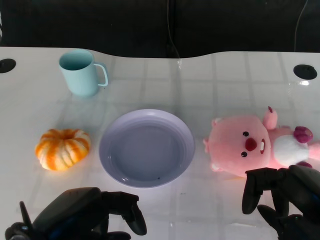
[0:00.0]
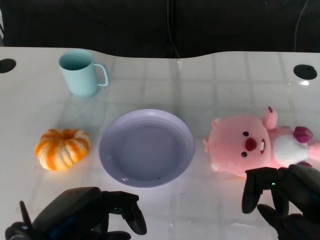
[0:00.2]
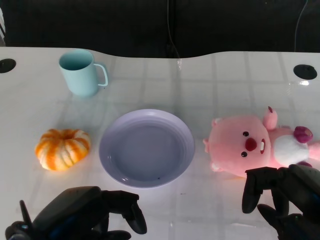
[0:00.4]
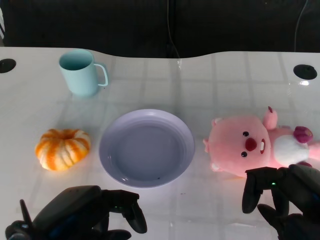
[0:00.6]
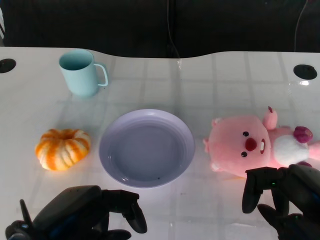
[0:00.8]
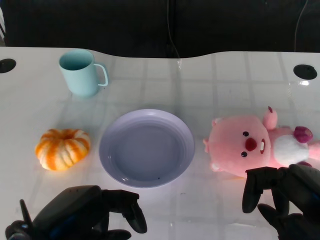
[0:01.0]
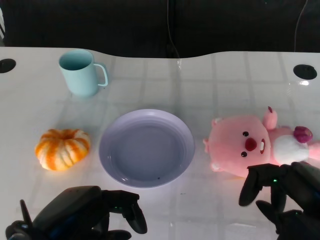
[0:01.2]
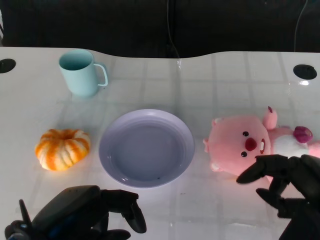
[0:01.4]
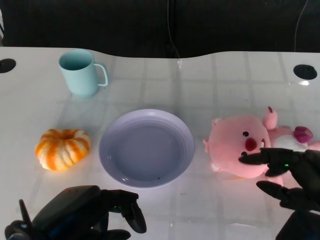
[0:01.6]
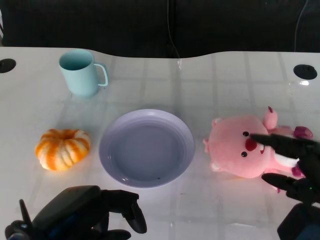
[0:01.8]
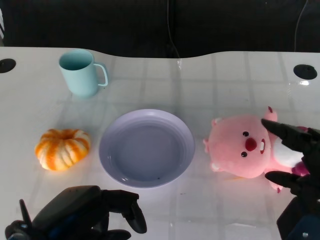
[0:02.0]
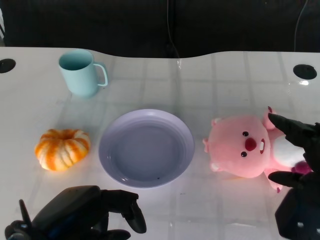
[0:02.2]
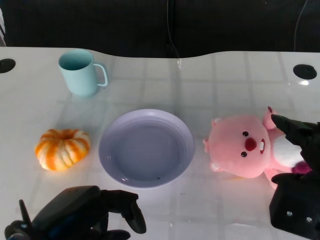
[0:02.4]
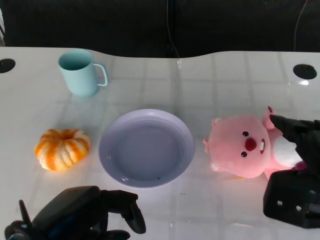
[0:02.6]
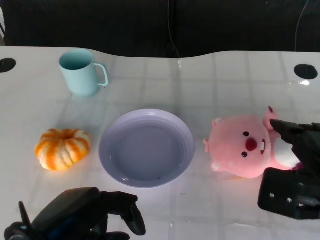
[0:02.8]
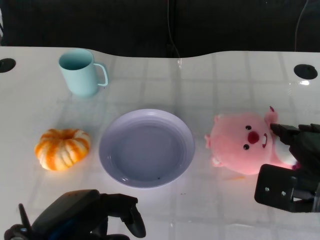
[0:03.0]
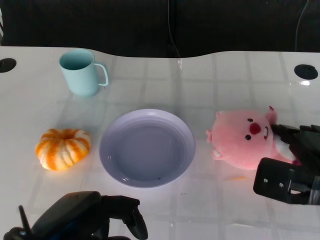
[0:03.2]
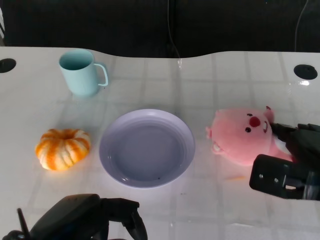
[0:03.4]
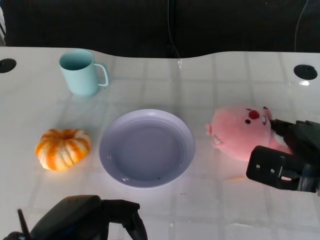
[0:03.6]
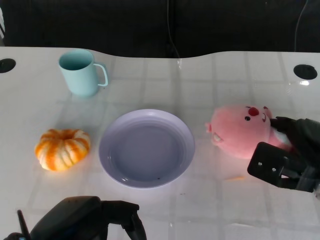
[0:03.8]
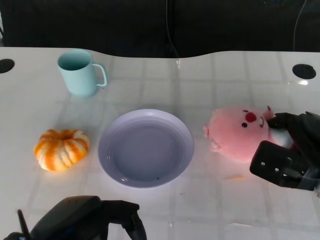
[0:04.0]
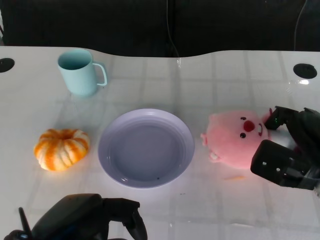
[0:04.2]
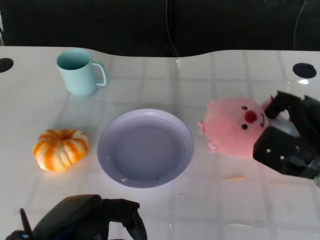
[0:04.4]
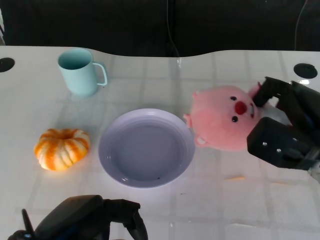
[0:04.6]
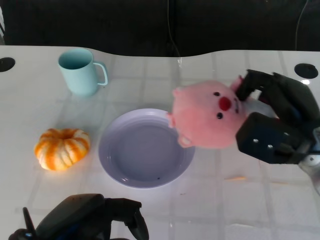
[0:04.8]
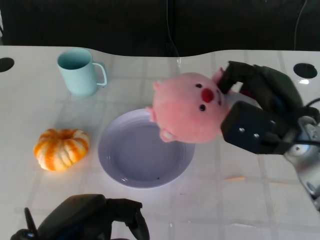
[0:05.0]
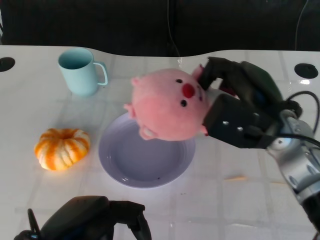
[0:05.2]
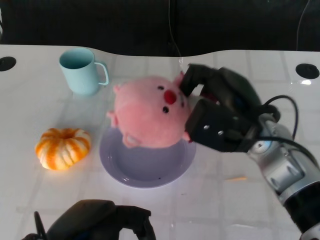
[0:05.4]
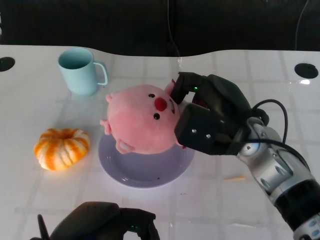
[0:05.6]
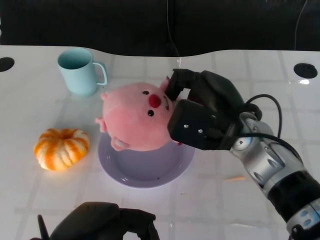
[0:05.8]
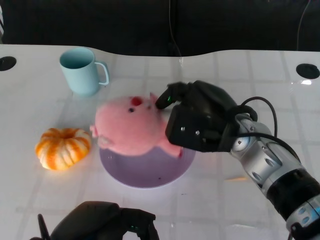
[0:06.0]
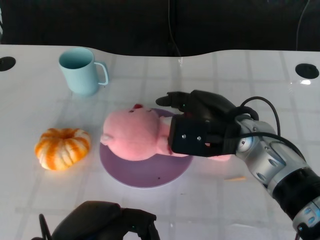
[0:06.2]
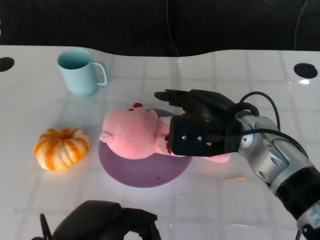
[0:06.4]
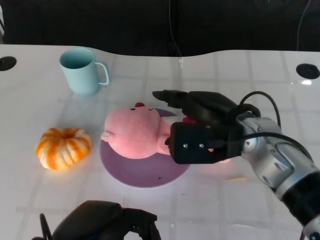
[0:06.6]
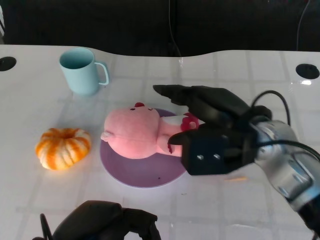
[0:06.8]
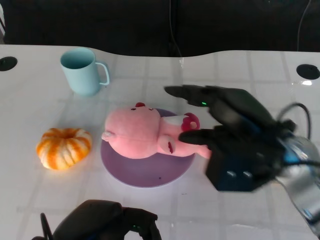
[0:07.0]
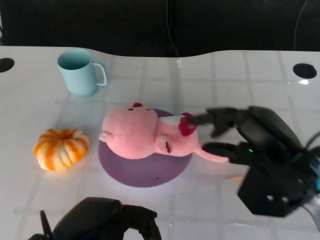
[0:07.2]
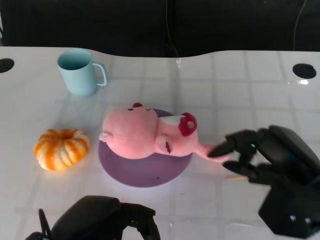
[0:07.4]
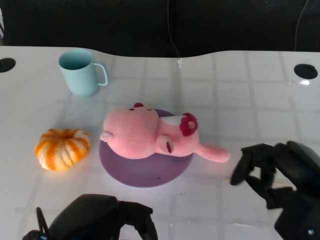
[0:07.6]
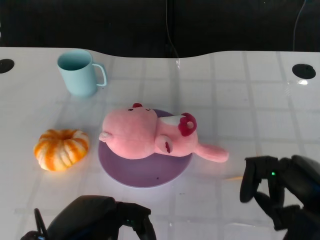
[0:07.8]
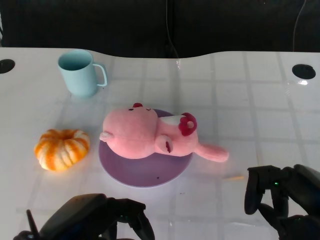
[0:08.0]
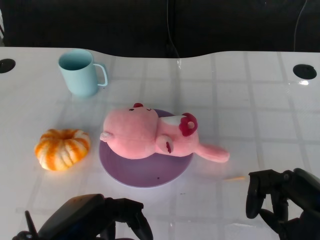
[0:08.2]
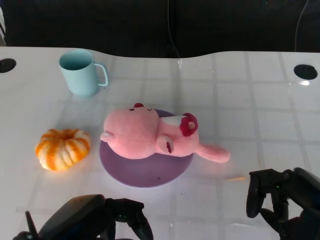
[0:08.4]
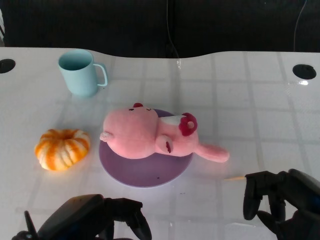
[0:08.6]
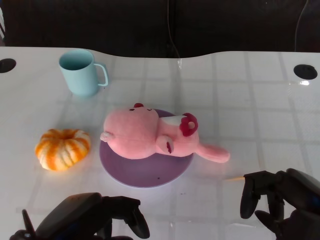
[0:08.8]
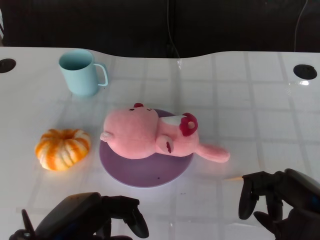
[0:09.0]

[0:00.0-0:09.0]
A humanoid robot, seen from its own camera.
Task of the whole recording: Pick up the doll on the other side of the plate and place it into the plate.
Step, 0:01.2 to 0:05.2: Grasp the pink doll with the right gripper.
Step, 0:05.4 to 0:07.0: Place the pink doll into the plate with the right gripper.
0:01.6 to 0:03.0: The right hand goes some 5 cm forward.
0:03.0 to 0:04.4: The right hand travels forward by approximately 5 cm.
0:04.4 to 0:06.0: The right hand goes approximately 15 cm to the left.
0:06.0 to 0:07.6: The right hand travels to the right and backward by some 15 cm.
0:07.6 to 0:09.0: The hands move only a little.

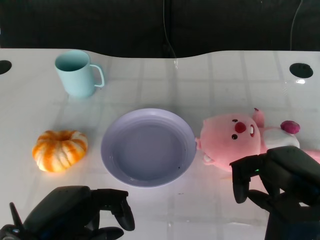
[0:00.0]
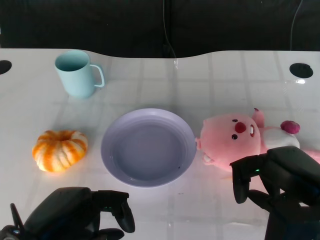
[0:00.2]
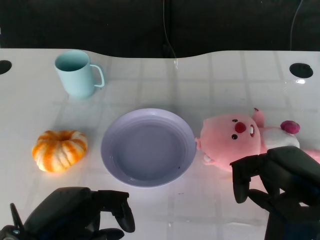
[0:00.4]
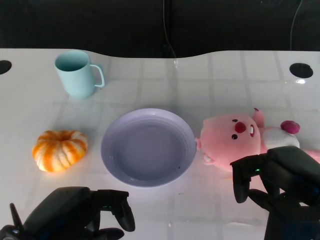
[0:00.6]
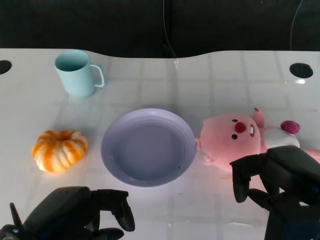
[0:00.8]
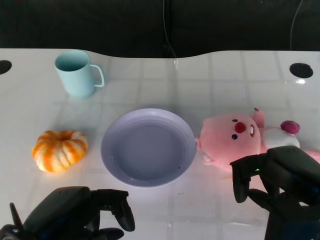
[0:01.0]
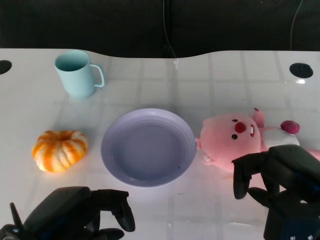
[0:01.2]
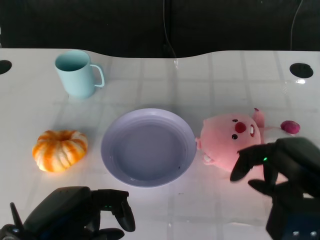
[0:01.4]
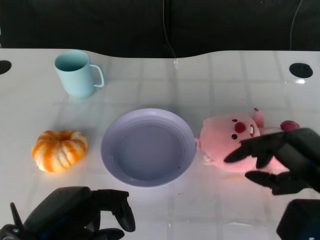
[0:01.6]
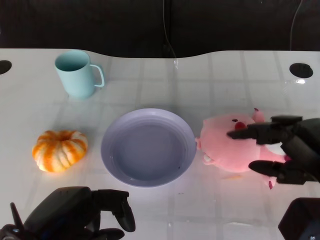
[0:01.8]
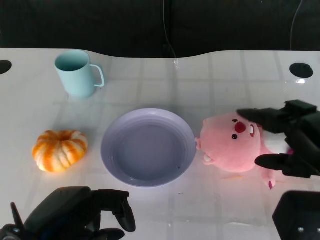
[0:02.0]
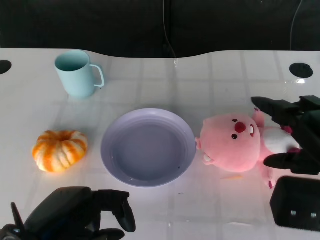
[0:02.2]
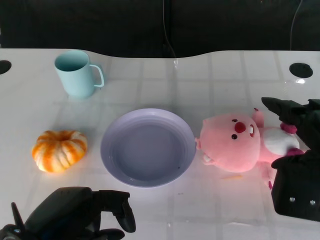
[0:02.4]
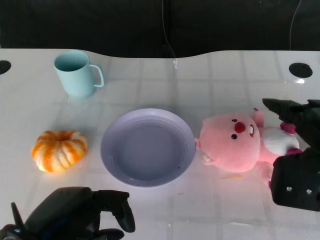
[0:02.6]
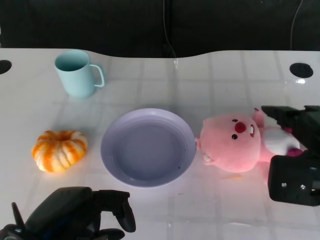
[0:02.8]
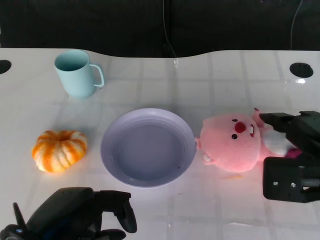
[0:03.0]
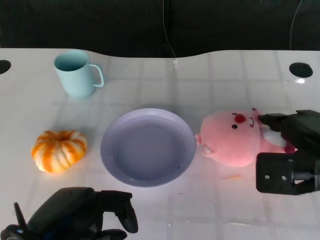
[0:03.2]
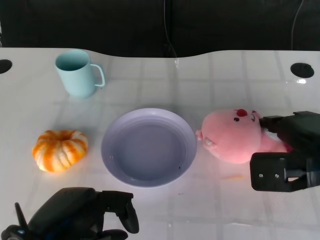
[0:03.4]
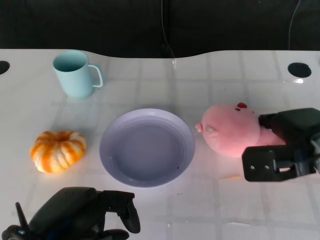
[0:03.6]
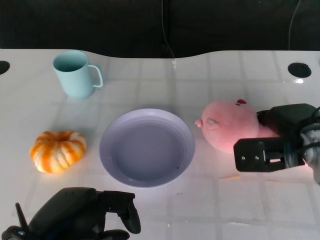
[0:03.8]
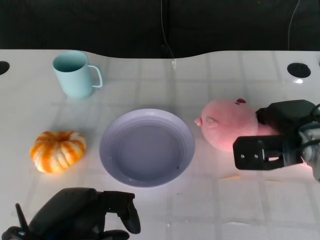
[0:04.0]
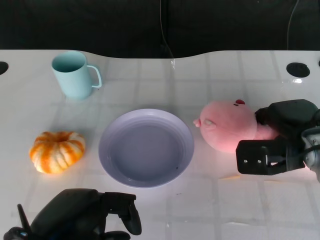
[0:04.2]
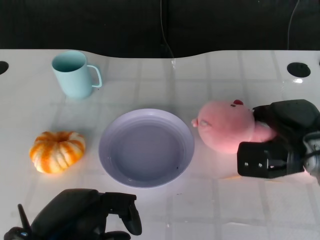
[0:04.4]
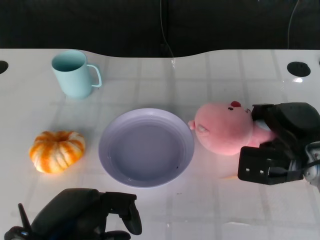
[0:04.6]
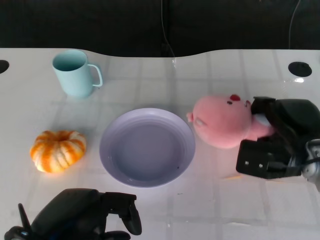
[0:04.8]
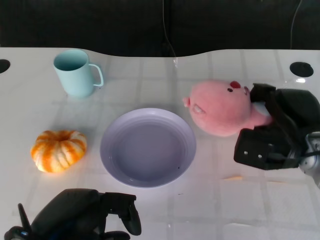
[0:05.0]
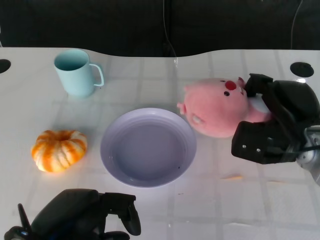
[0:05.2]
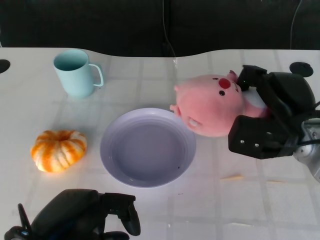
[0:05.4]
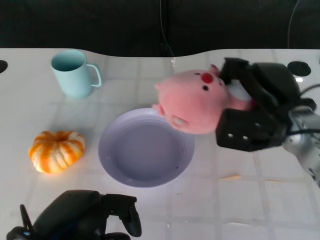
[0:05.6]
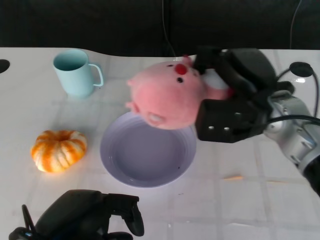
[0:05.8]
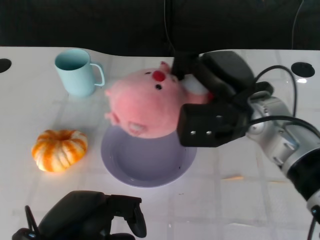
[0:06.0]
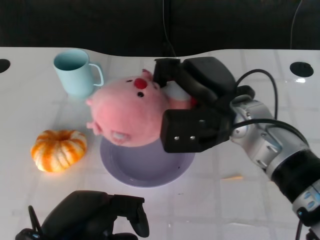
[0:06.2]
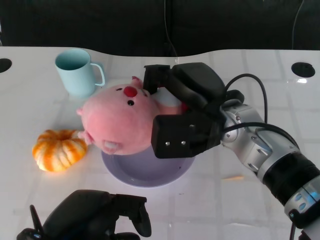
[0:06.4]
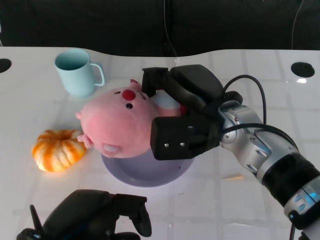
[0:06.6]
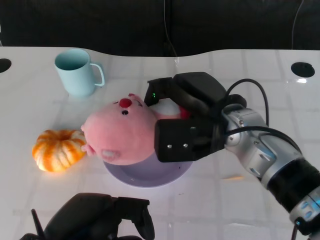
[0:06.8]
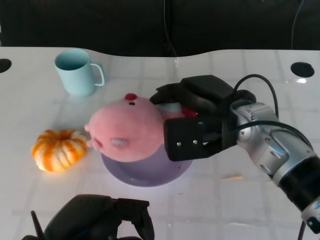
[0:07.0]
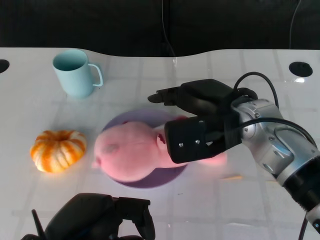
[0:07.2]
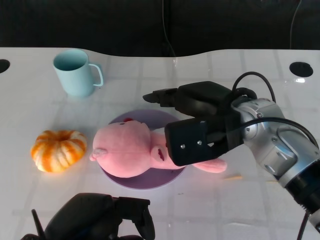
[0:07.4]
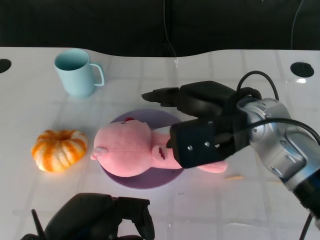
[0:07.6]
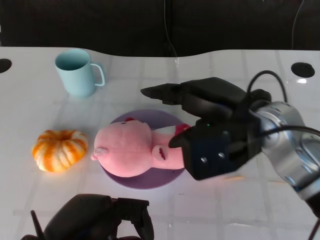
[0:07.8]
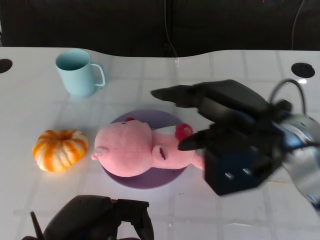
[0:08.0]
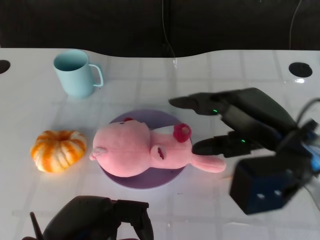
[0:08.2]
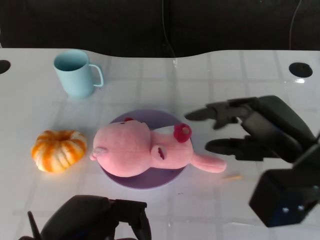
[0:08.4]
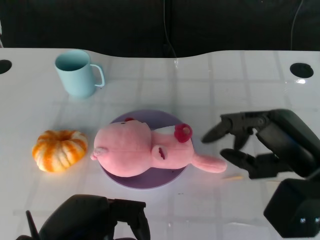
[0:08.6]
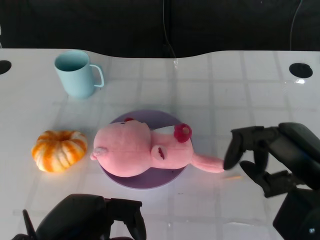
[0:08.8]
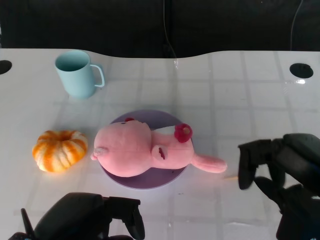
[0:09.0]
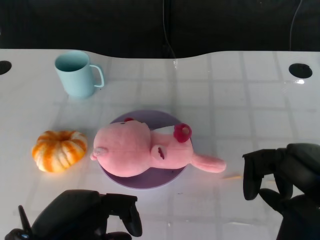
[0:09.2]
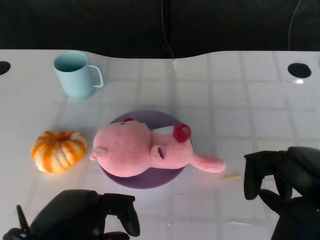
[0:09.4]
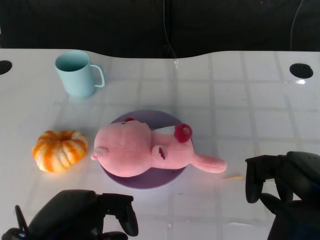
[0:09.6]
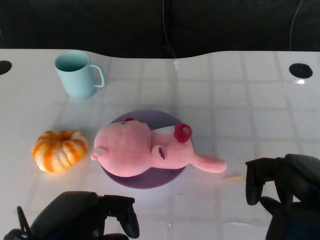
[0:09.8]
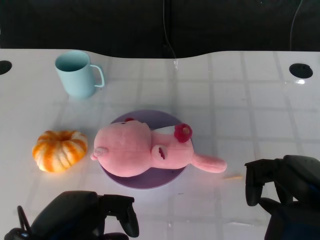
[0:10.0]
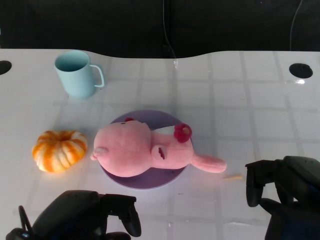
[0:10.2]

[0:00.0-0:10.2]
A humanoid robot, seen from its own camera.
Task of the whole recording: Pick up the doll on the other side of the plate and place it into the plate.
Step, 0:01.2 to 0:04.8: Grasp the pink doll with the right gripper.
Step, 0:05.0 to 0:07.4: Place the pink doll into the plate with the right gripper.
0:03.0 to 0:04.4: The right hand travels forward and downward by about 10 cm.
0:04.4 to 0:05.8: The right hand is displaced upward and to the left by about 10 cm.
0:07.2 to 0:08.8: The right hand travels to the right and backward by about 15 cm.
0:08.8 to 0:10.2: There are only small adjustments of the hands.

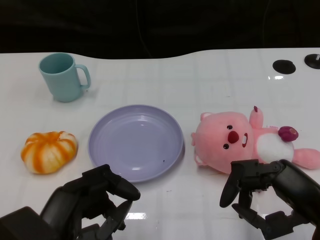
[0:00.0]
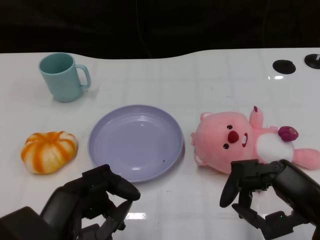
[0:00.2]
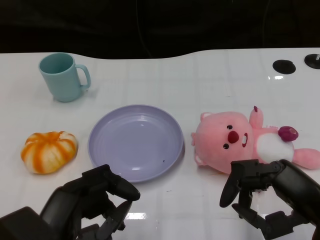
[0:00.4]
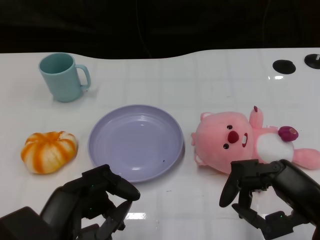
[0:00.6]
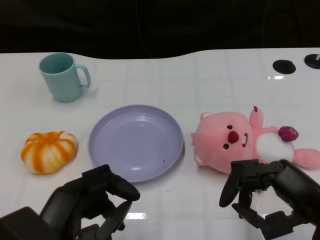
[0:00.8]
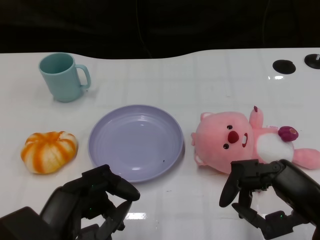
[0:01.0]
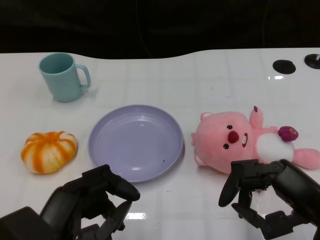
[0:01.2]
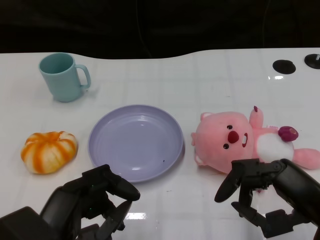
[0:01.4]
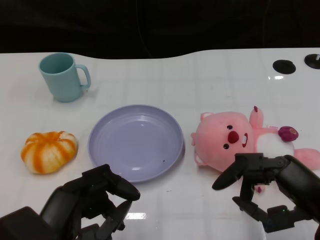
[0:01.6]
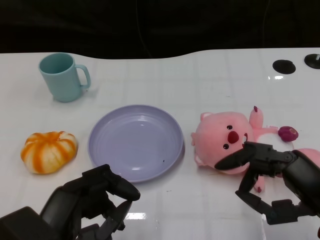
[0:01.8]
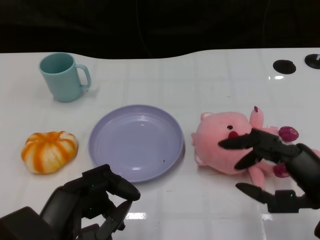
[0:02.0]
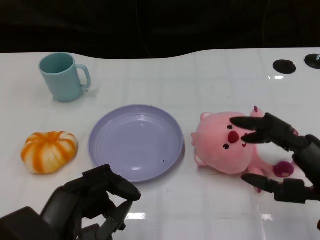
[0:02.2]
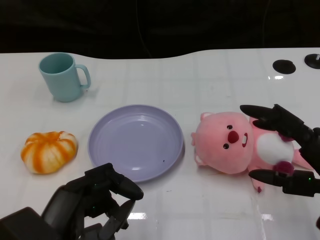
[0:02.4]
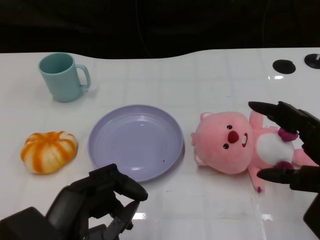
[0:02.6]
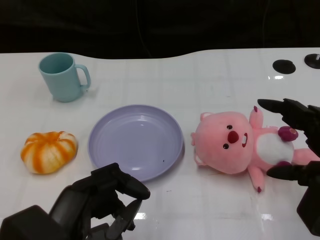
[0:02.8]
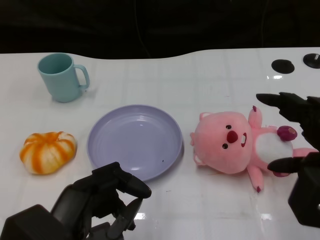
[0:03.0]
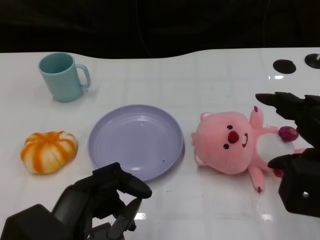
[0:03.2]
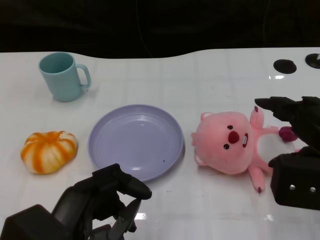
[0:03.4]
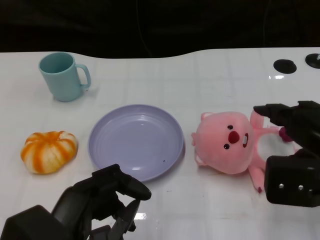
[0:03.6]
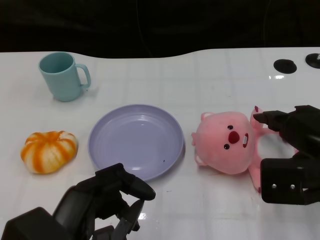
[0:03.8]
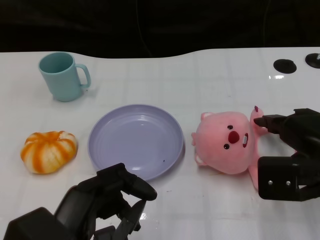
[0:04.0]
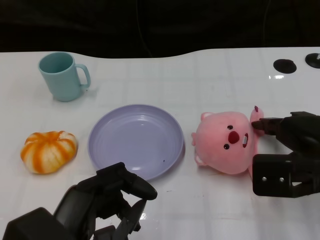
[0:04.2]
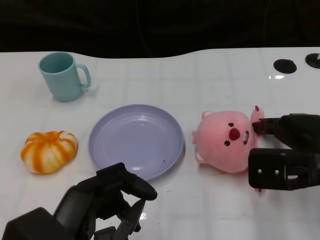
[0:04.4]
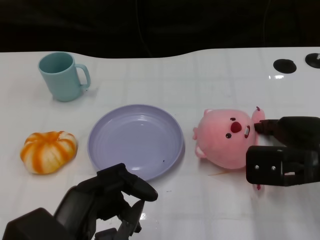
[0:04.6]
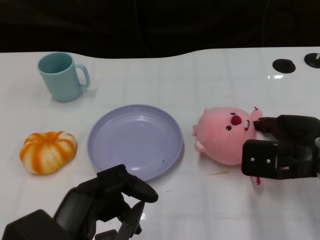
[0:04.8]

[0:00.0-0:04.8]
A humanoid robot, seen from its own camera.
Task of the whole recording: Pick up the doll on the other side of the plate and place it into the plate.
0:01.6 to 0:03.2: The right hand heads upward, covering some 5 cm.
0:03.2 to 0:04.8: The right hand shifts about 10 cm forward and downward.
